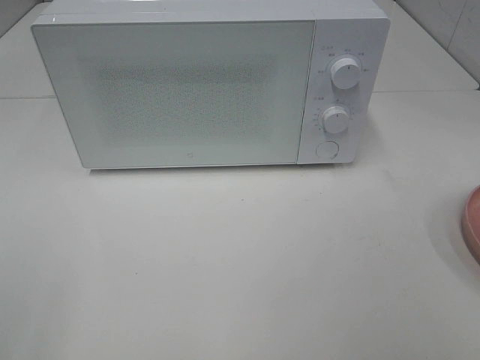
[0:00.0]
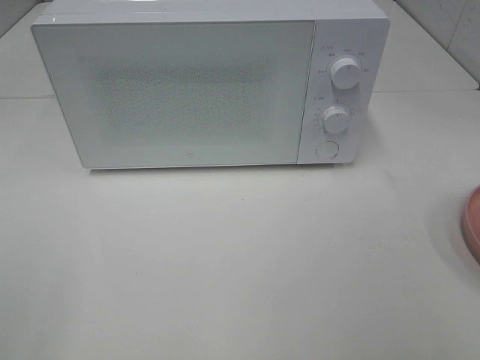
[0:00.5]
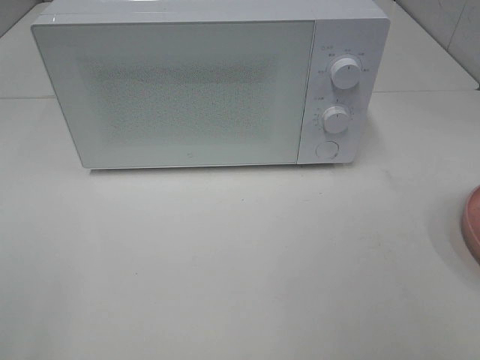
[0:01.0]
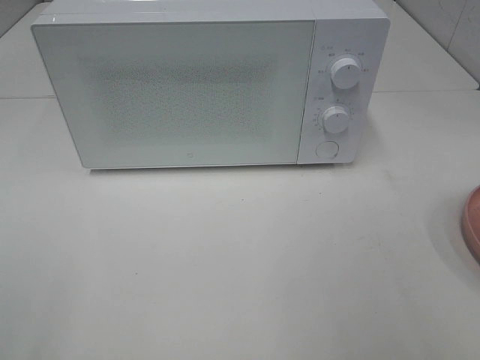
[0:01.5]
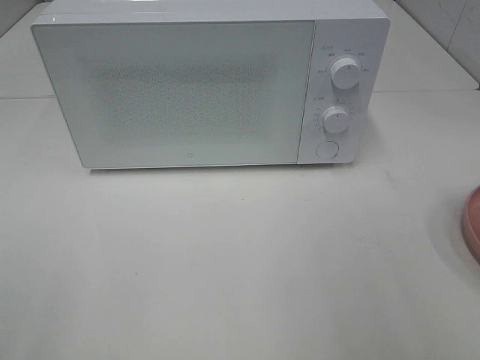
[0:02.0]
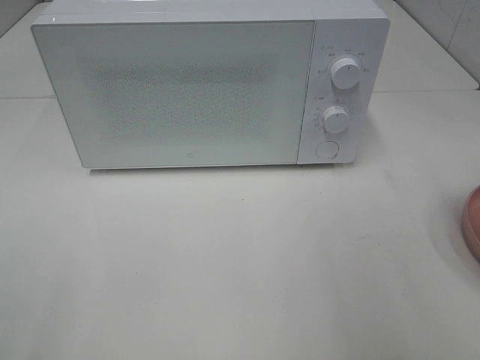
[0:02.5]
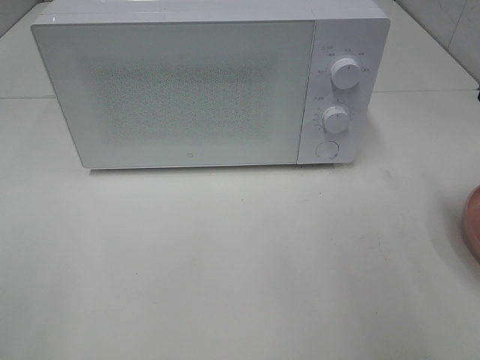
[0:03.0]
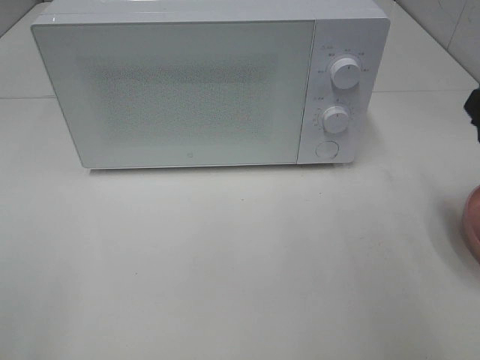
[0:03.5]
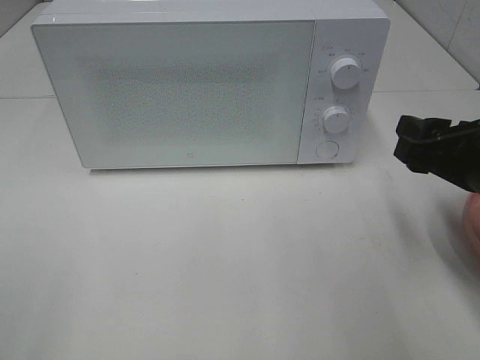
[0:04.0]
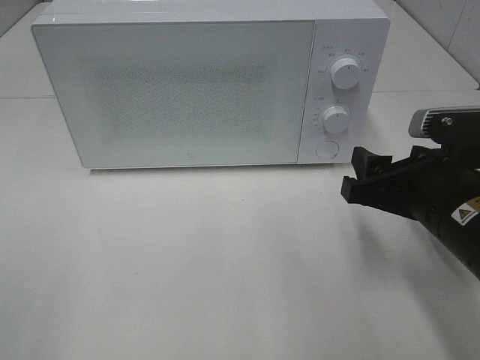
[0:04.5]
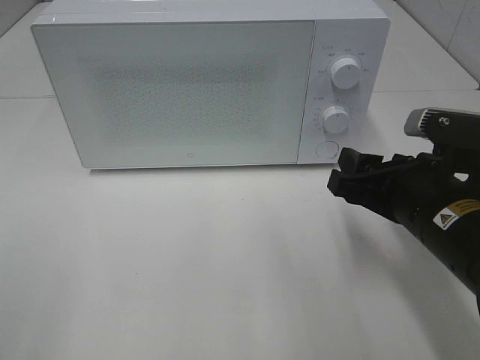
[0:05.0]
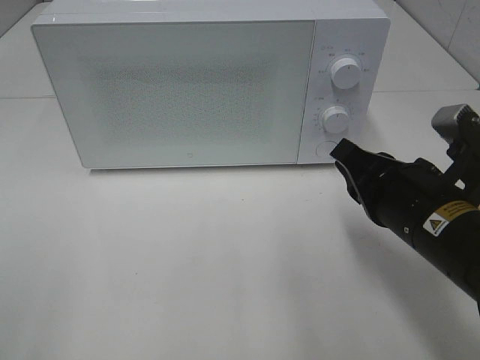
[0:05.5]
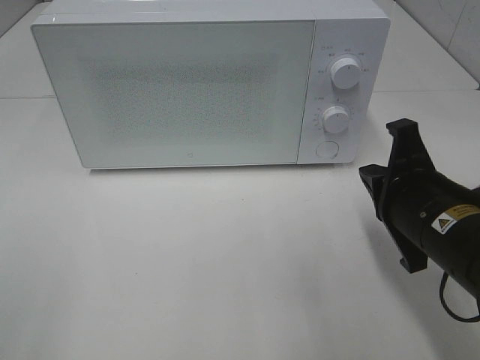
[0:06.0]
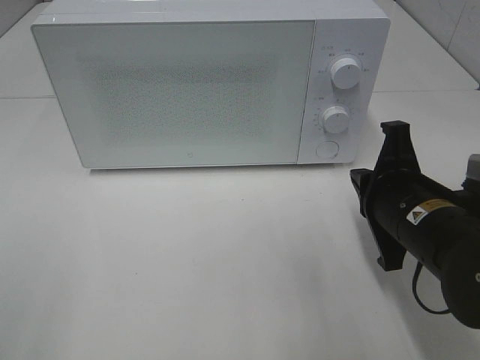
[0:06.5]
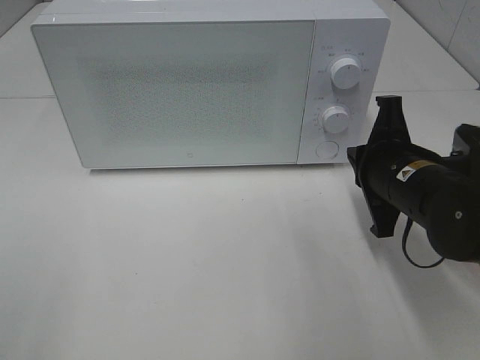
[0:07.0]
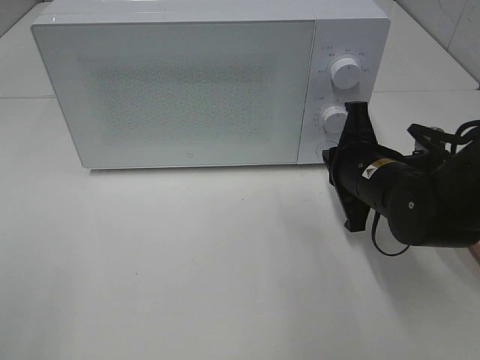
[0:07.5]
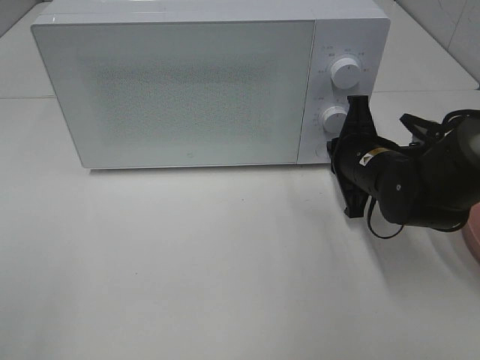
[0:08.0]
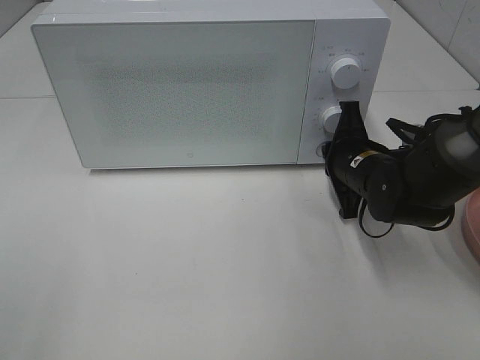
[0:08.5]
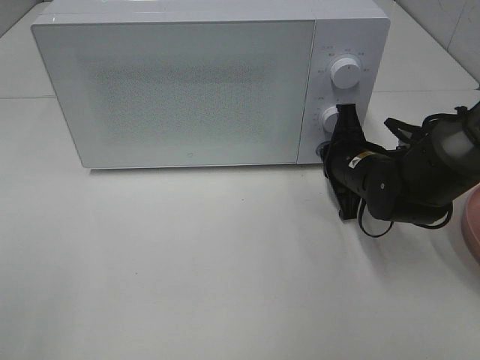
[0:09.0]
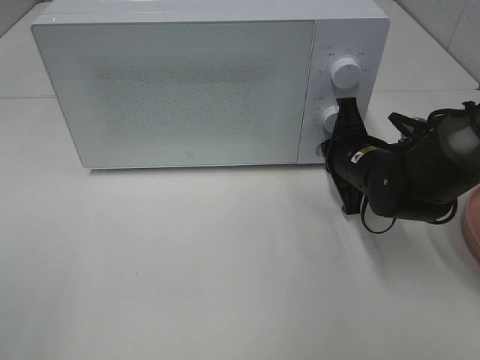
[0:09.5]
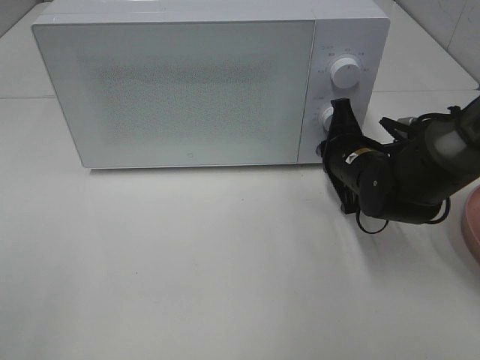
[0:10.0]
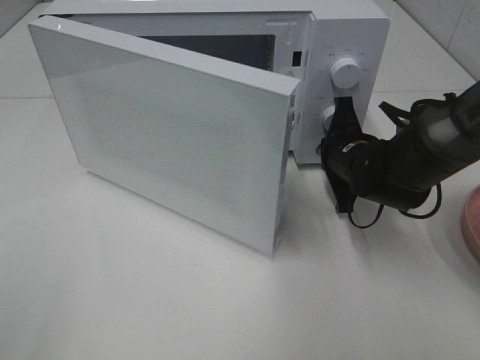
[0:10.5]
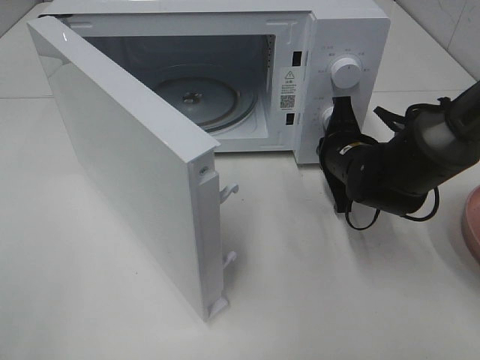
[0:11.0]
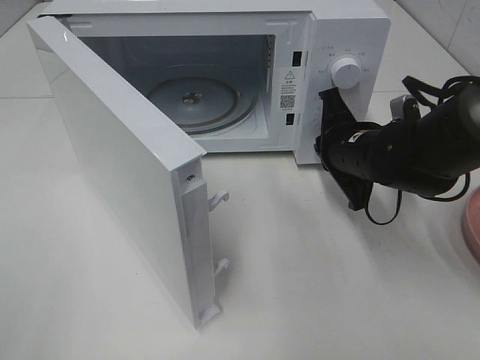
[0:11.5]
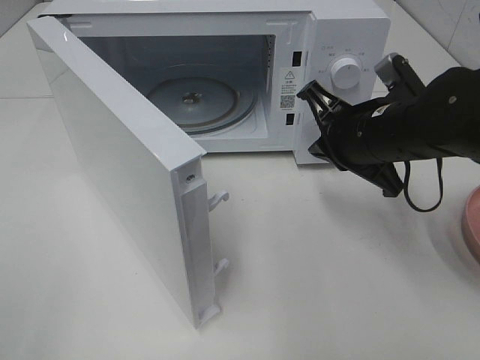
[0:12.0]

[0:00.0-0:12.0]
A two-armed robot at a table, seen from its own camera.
Task of the whole recording: Heat the burger.
Step, 0.0 to 11.0 s: Right hand: press the switch.
2.0 to 4.0 s: The right gripper travels downward, forward and to the left by approximately 15 cm.
4.0 to 6.0 s: The right gripper is displaced to the left by about 5 cm, and closes up.
6.0 to 8.0 s: The right gripper travels forward by about 15 cm.
8.0 to 10.0 s: The grippers stay close to where they were, moving slightly.
10.0 to 12.0 s: The right gripper goes about 10 cm upward and backward.

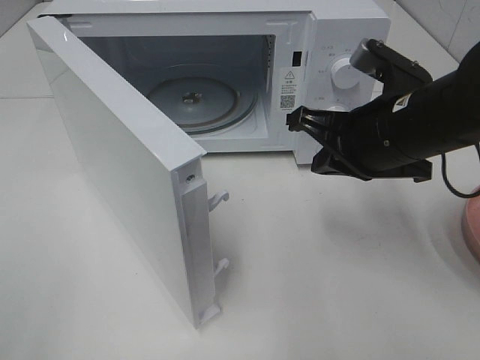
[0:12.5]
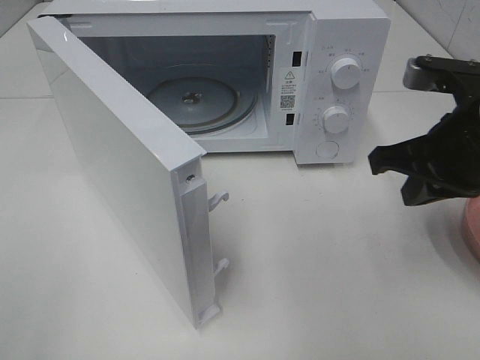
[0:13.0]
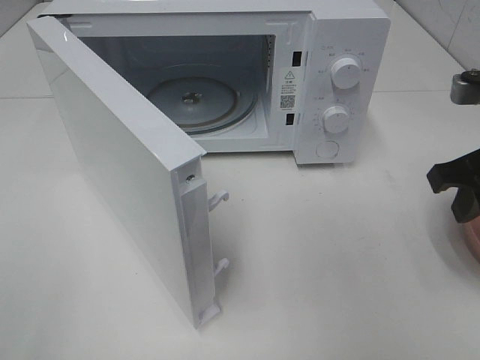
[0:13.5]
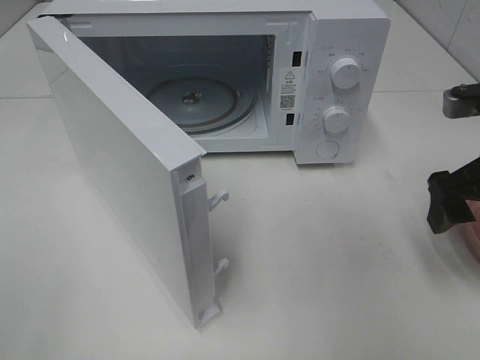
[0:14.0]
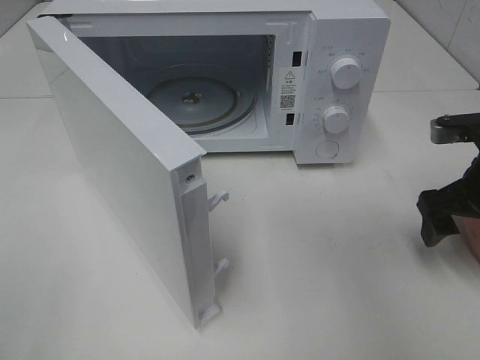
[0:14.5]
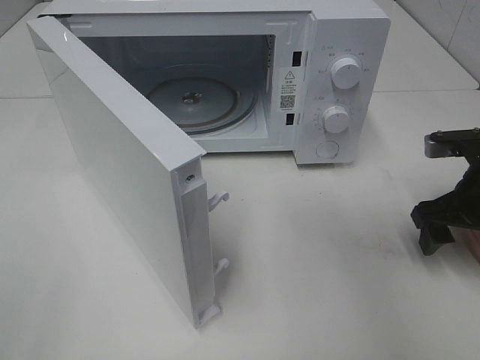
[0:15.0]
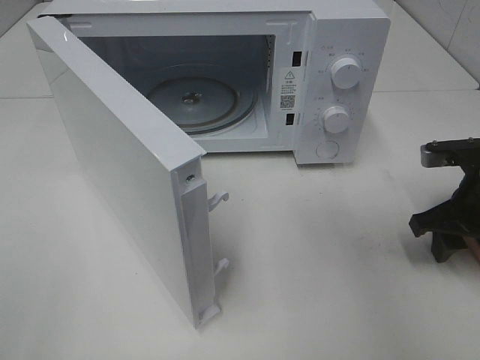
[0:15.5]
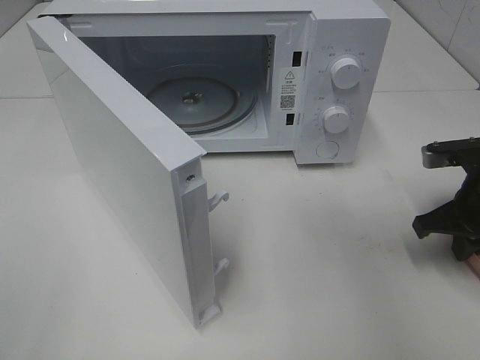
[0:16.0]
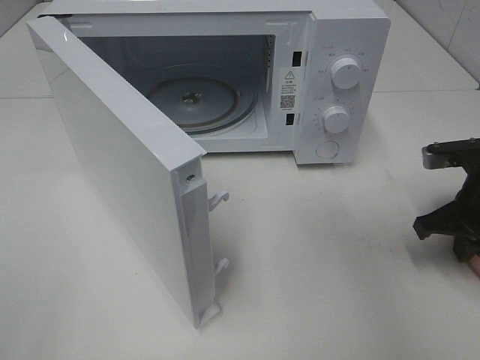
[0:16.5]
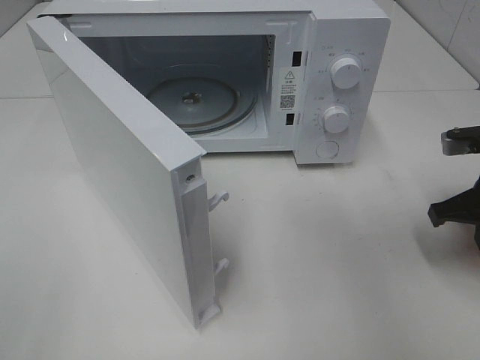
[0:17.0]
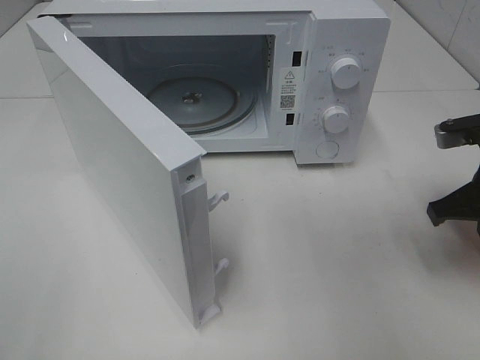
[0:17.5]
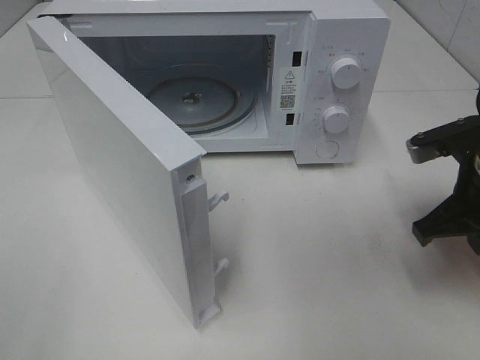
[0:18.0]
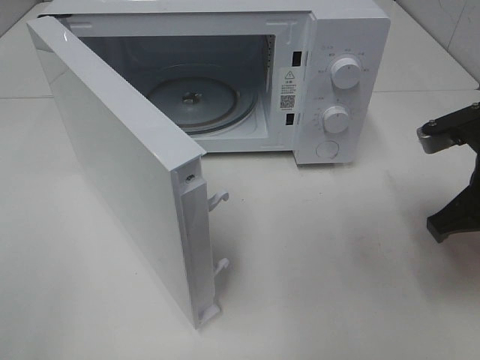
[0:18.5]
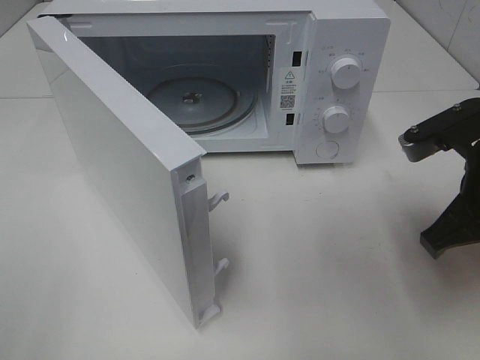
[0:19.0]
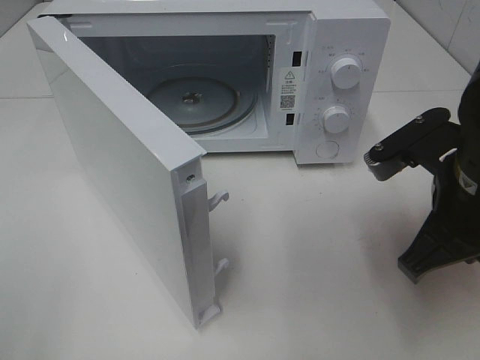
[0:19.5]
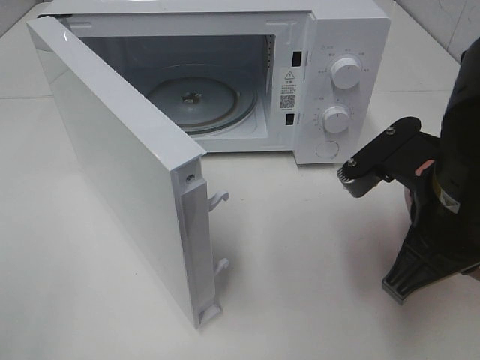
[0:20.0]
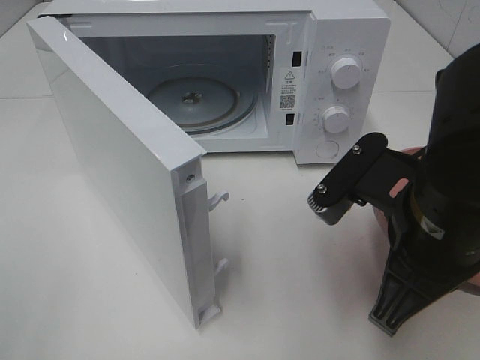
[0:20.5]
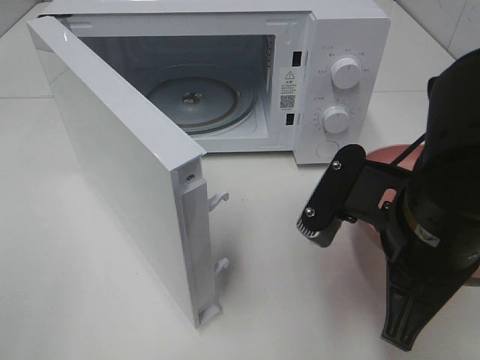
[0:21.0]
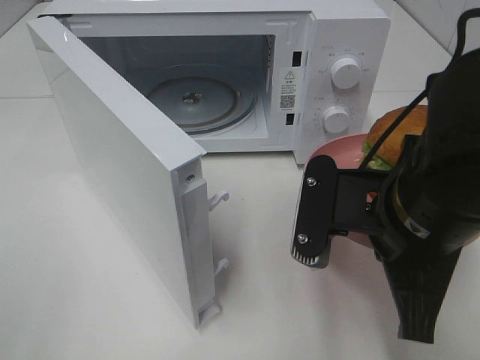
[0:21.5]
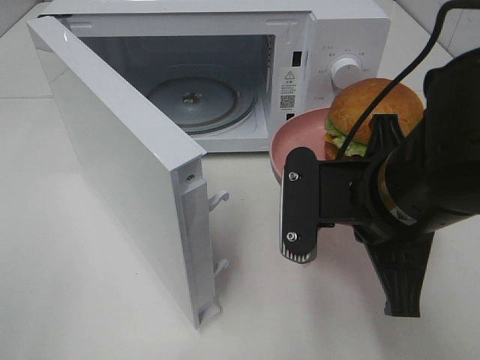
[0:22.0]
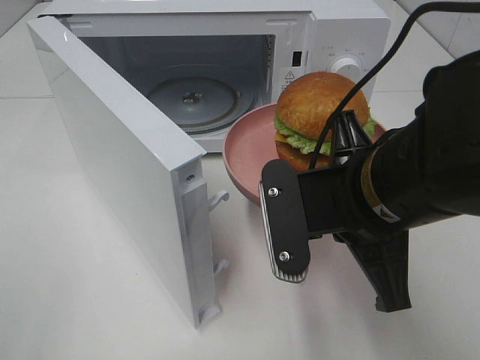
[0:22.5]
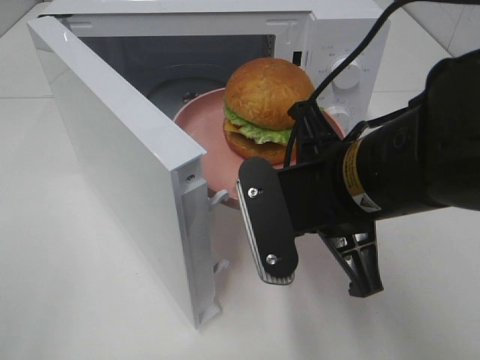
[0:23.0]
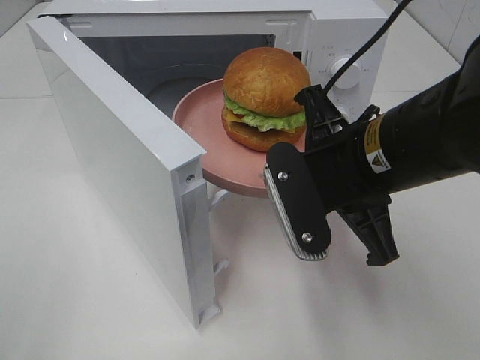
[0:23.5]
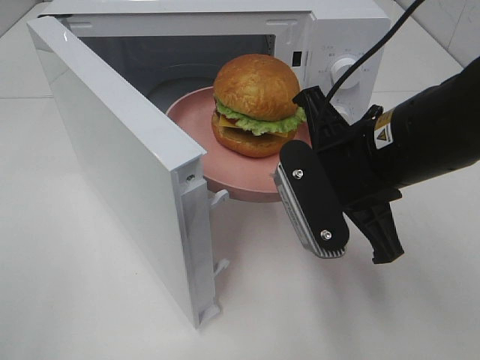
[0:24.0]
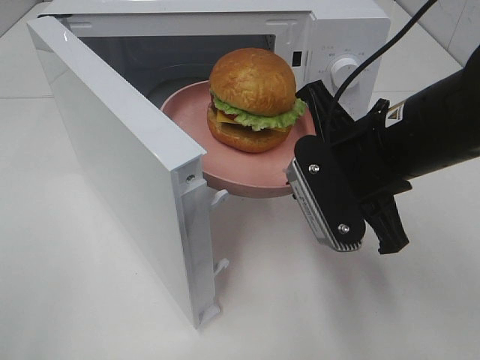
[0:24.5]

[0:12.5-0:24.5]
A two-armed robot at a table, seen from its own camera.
Task of the whole recording: Heat the burger.
Step, 12.5 to 15.5 s: Right hand: grab the plate with the hamburger.
12.5 to 14.5 s: The right gripper moves to the right, approximately 15 cm, and opens its fingers.
14.5 to 16.5 s: The right gripper closes.
16.5 to 18.5 s: The right gripper is displaced upward by approximately 5 cm.
18.5 to 20.5 s: The right gripper is displaced to the left and backward by about 15 cm.
22.5 to 24.5 s: The right gripper moves forward, roughly 5 cm.

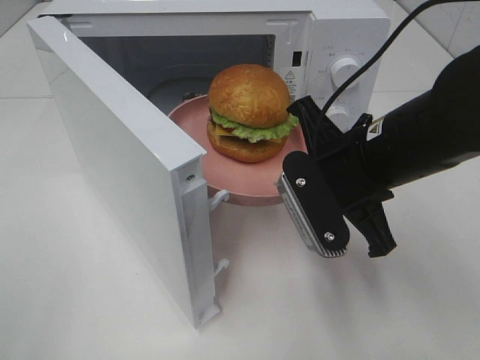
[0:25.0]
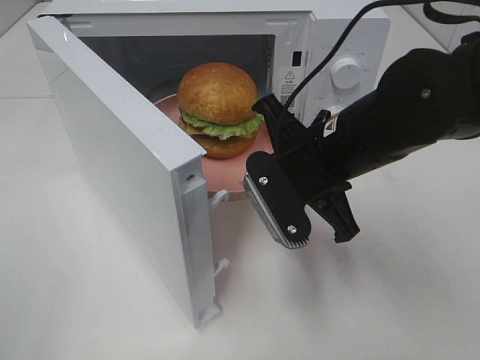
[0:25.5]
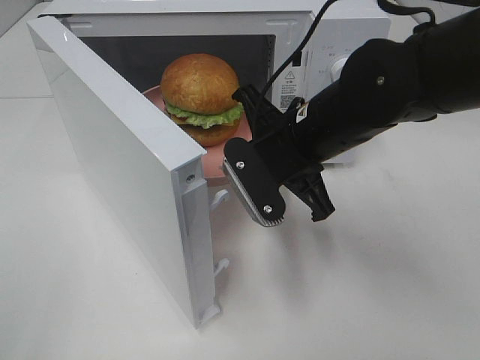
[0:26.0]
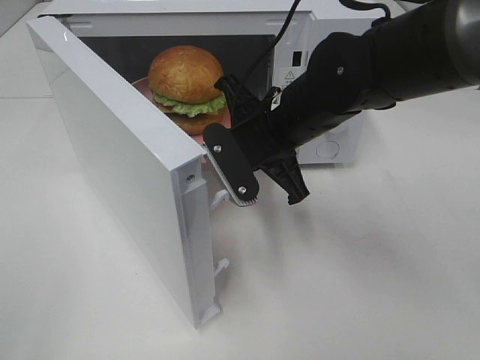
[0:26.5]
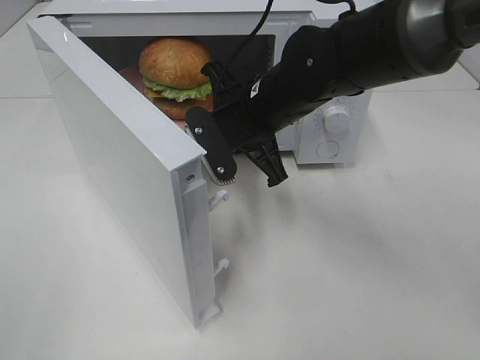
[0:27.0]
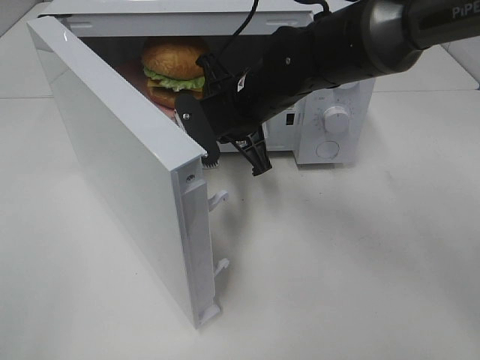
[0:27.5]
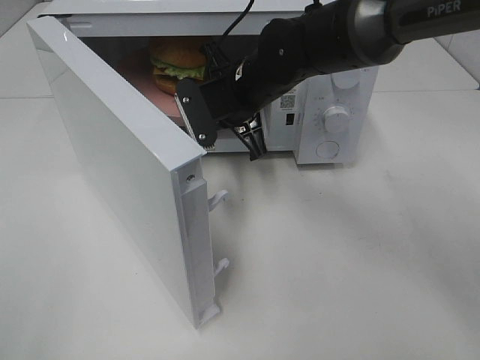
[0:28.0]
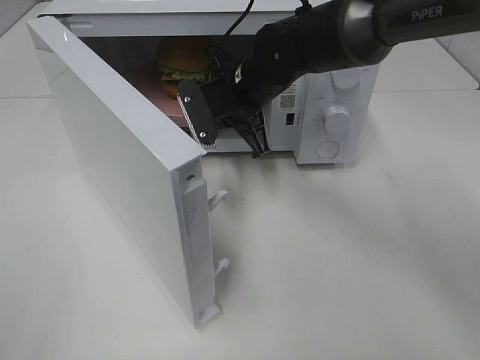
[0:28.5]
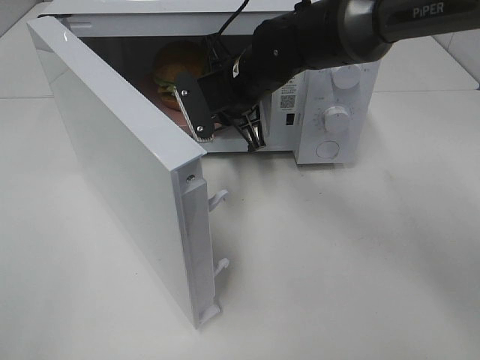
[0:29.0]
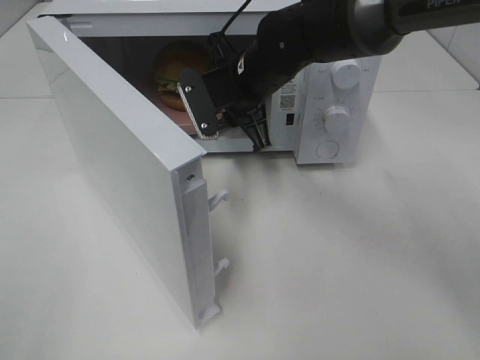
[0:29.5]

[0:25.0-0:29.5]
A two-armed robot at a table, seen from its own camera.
Task of the whole recording: Heat the burger.
Step, 25.0 to 28.5 s: Right hand: place the plate in the microwave.
25.0 to 27.0 s: The right gripper goes some 15 cm forward and to the left.
27.0 to 29.5 s: The right gripper is displaced forward by about 5 cm.
